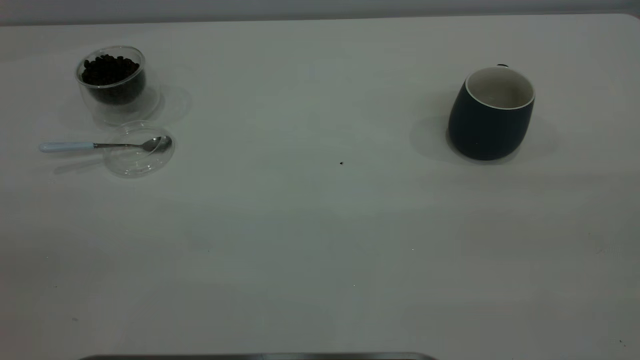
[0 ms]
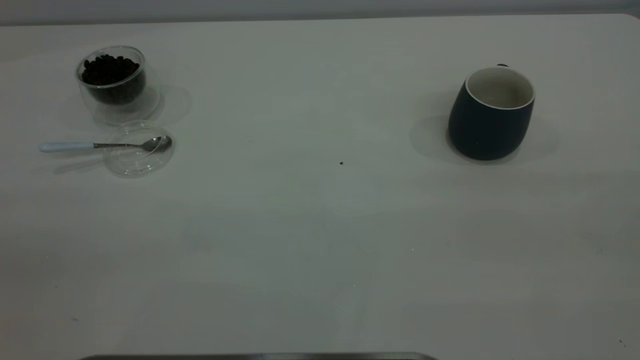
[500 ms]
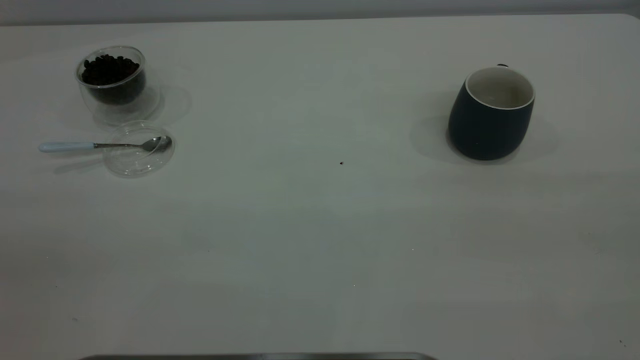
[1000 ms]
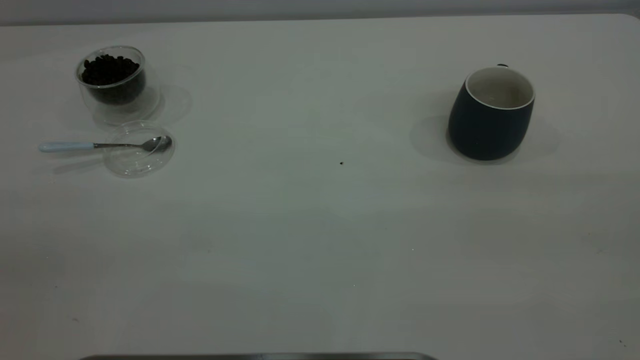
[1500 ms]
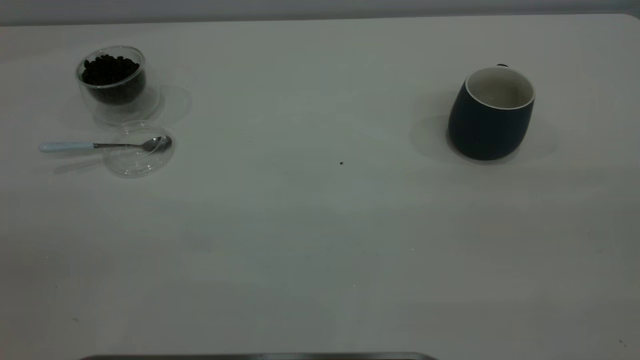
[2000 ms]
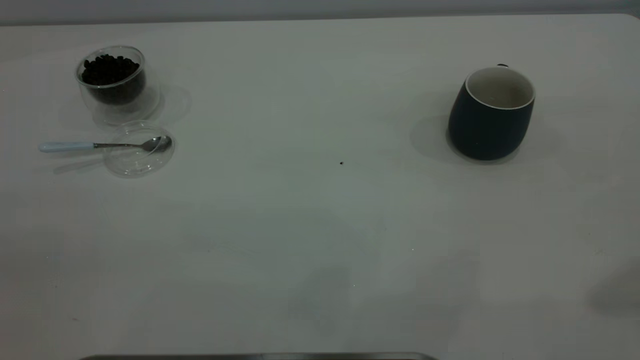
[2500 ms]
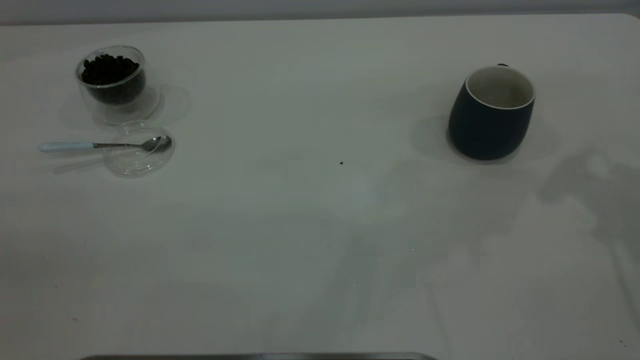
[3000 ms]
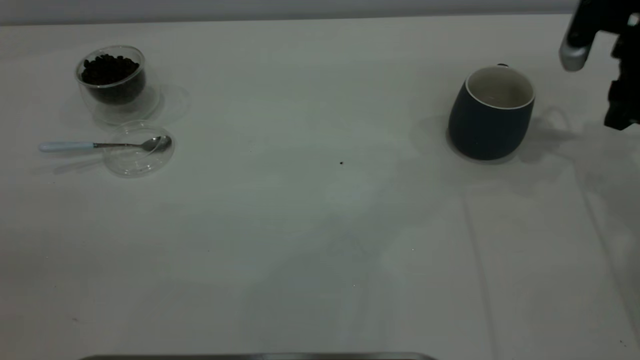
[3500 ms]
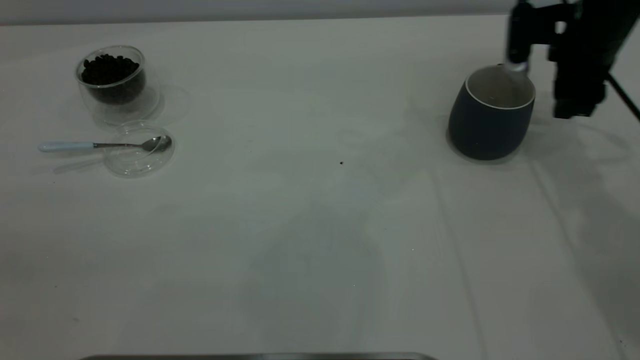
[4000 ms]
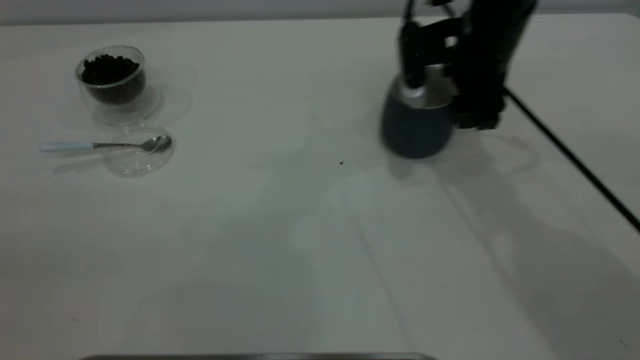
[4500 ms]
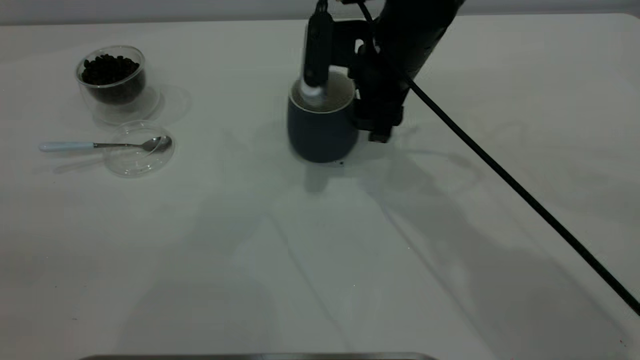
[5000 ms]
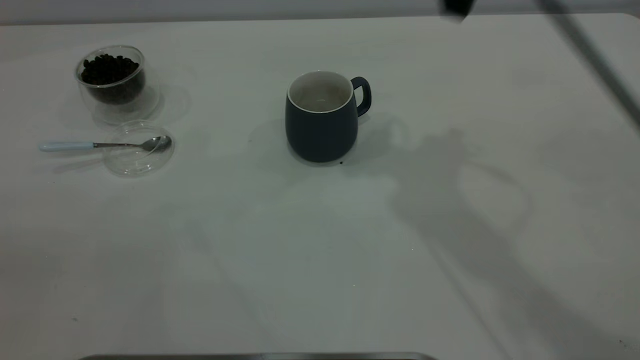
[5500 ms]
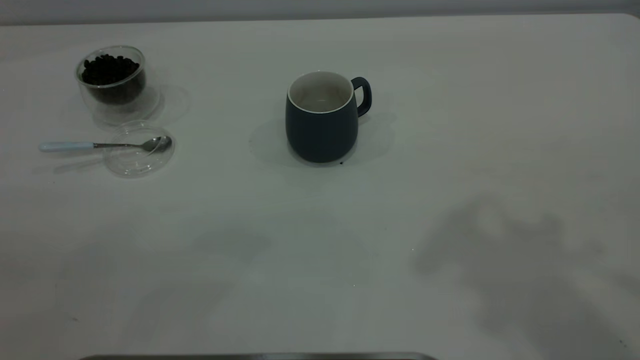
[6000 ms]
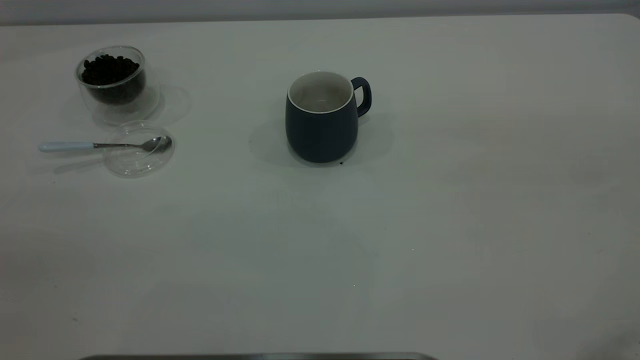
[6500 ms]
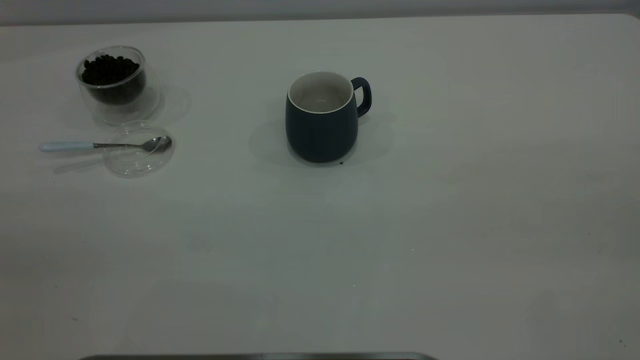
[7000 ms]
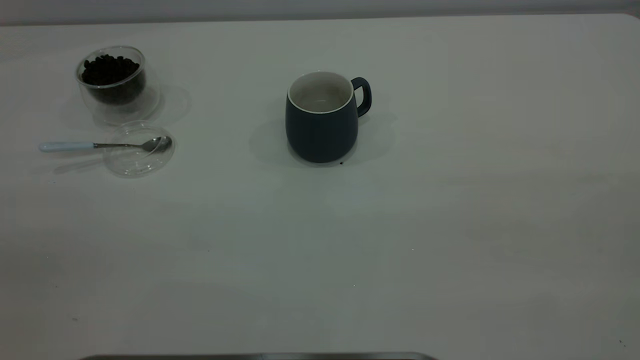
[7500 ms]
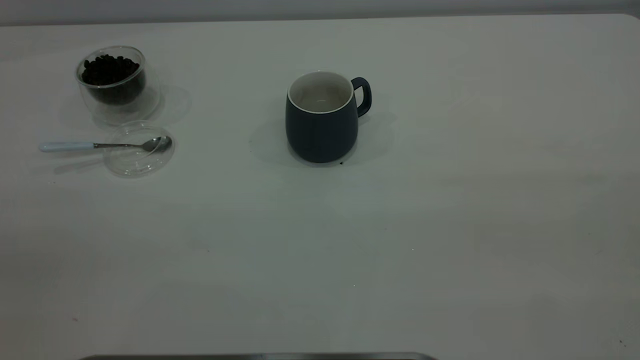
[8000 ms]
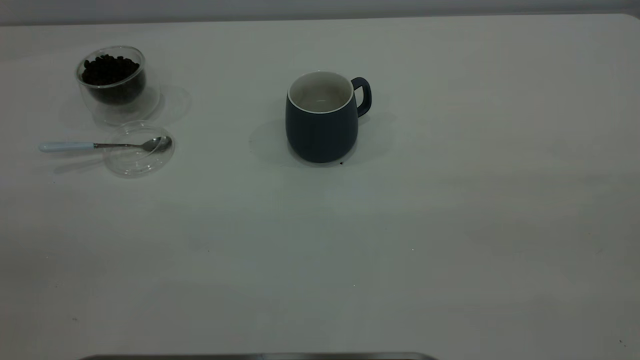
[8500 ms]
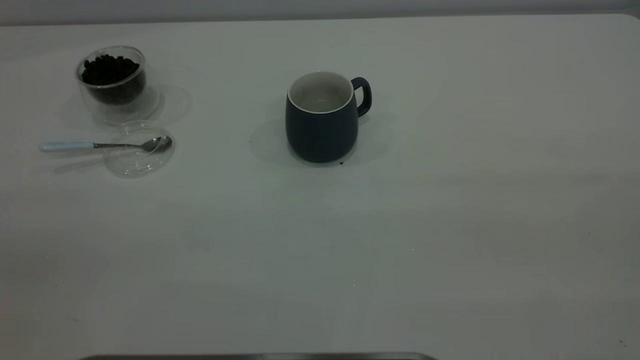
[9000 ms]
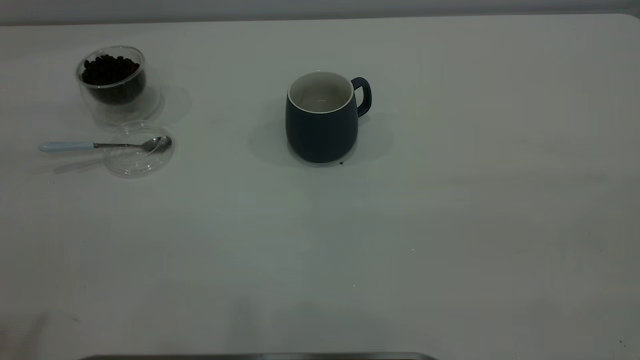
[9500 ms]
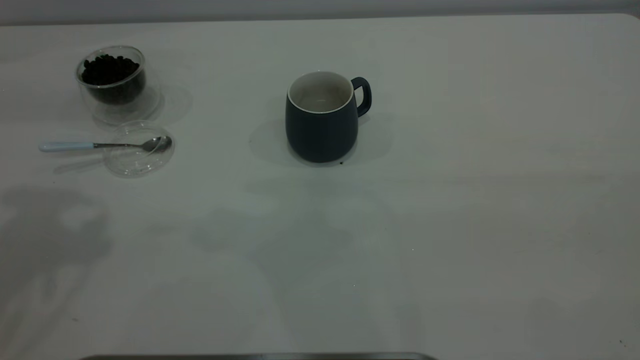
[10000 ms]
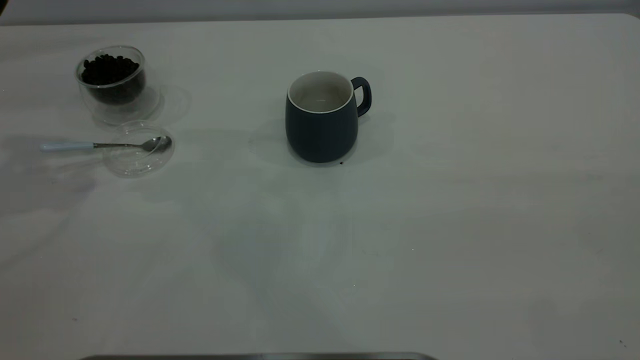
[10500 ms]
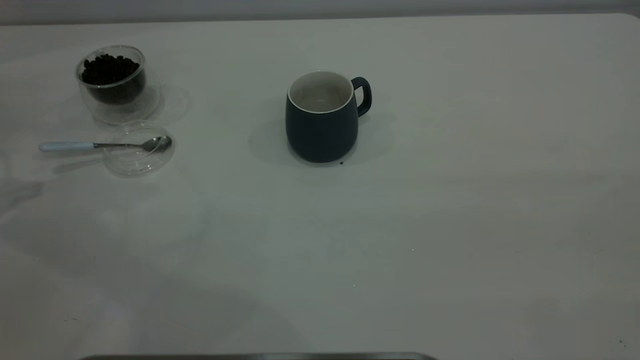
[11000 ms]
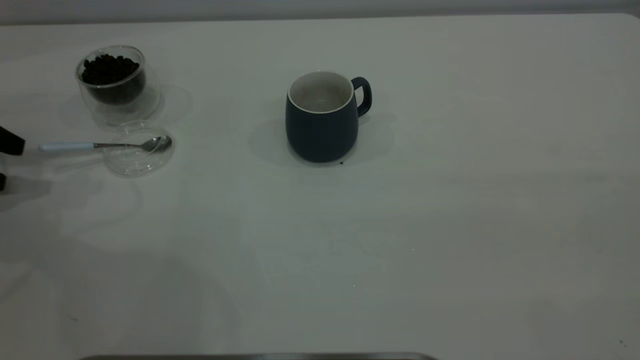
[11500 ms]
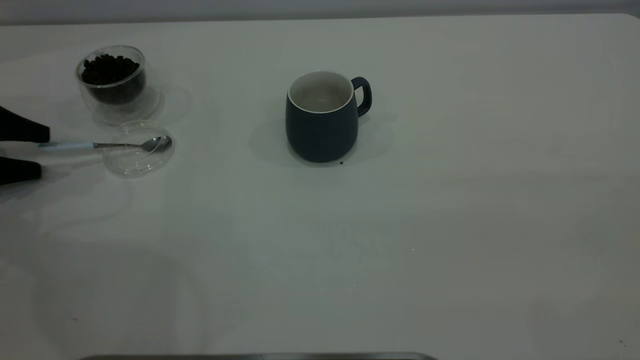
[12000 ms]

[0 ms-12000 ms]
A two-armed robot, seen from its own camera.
Task of the whole recording: the right gripper place the grey cup in the center of the table, the left gripper take the blue spoon from the cup lid and scoop out the coffee beans from the coffee cup and put them into the grey cup, the left gripper put the spoon back into the cup lid.
Step, 0 ms to 5000 ms: Move the cup to the center of view.
0 ms to 2000 ms: Neither gripper changes place.
2000 ms to 4000 ms: The right gripper is displaced forward and downward by about 50 cm.
4000 ms to 6000 ms: The right gripper is displaced upward and backward by about 40 cm.
10000 ms to 12000 ms: The left gripper goes roughly 35 cm downward and to the left.

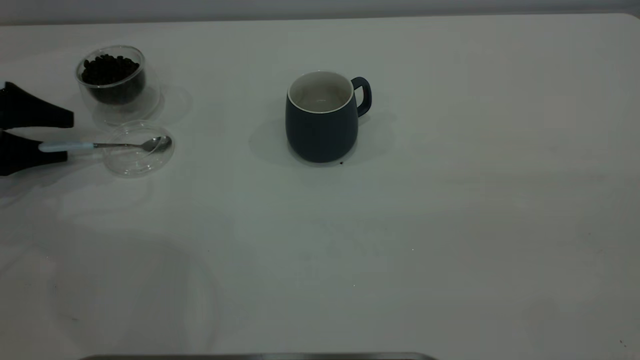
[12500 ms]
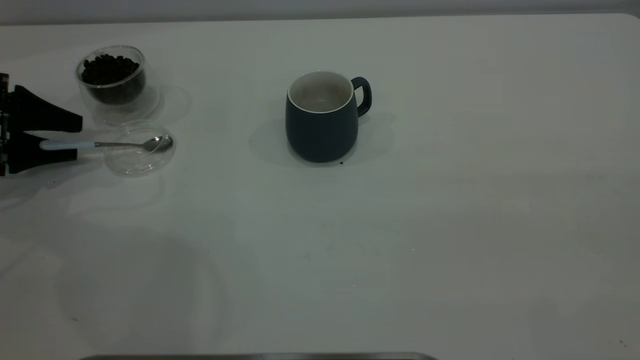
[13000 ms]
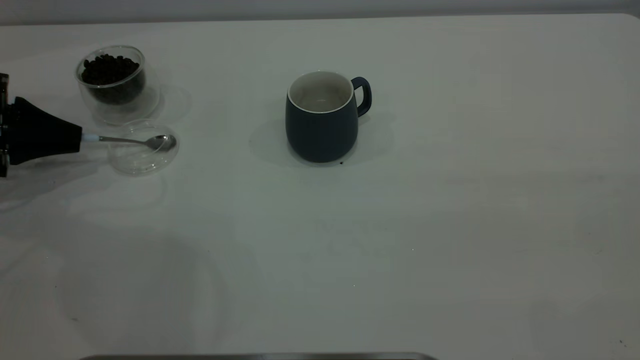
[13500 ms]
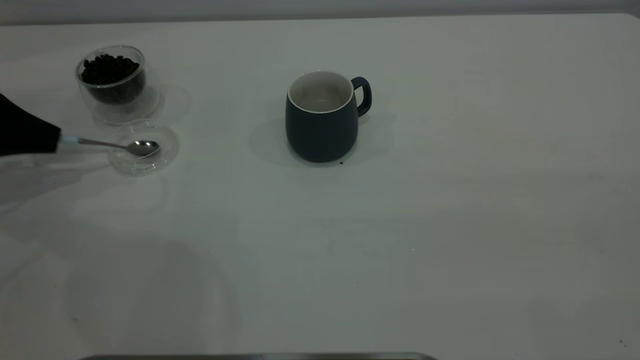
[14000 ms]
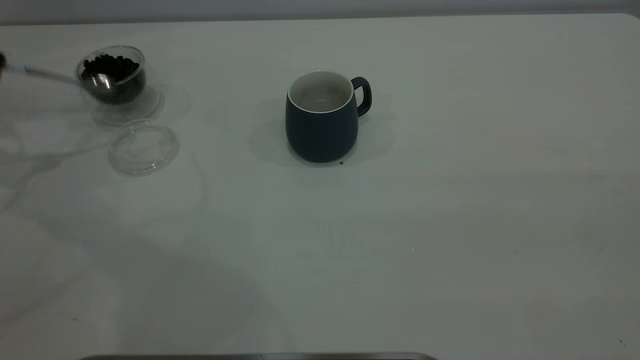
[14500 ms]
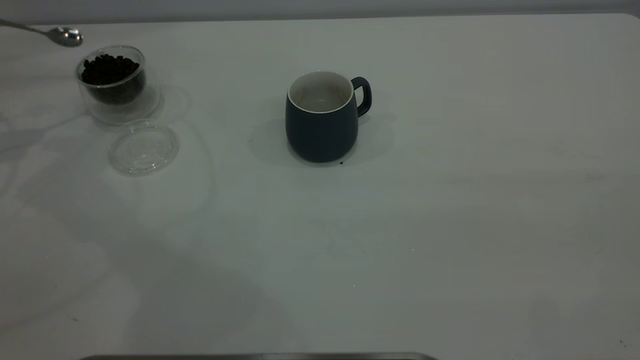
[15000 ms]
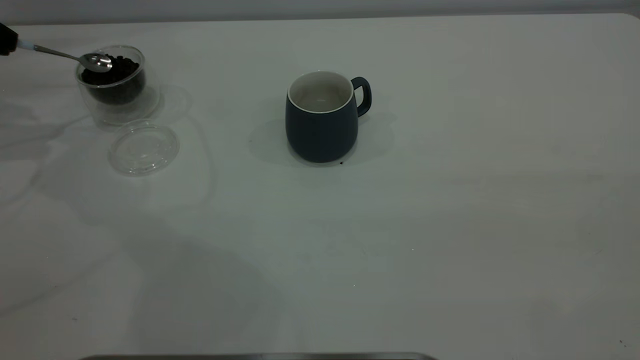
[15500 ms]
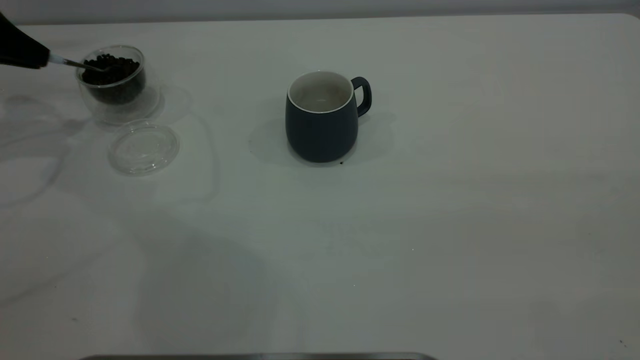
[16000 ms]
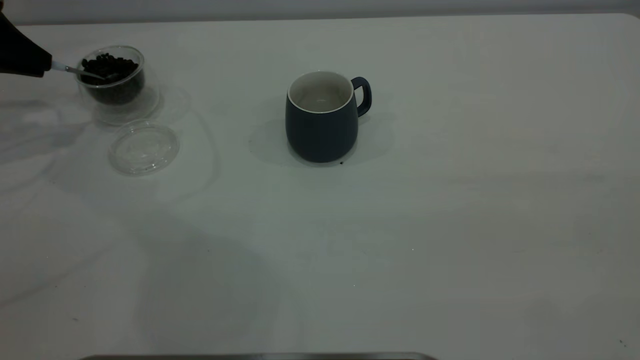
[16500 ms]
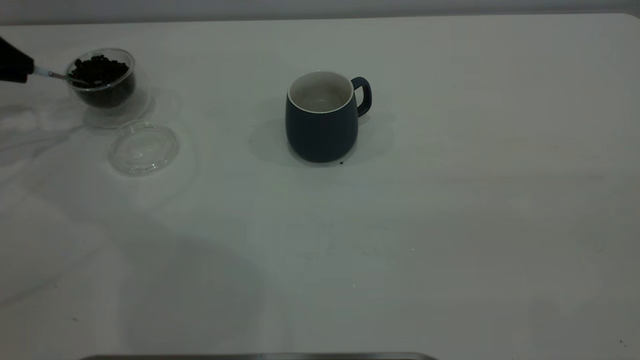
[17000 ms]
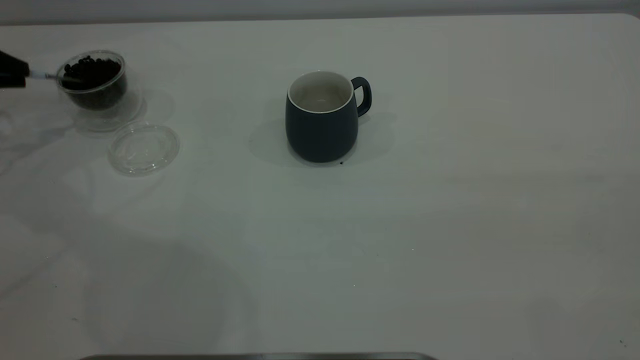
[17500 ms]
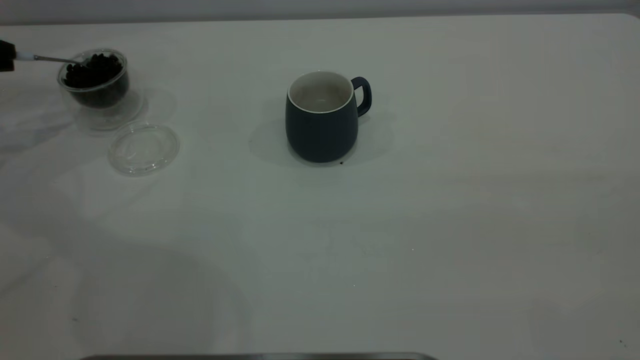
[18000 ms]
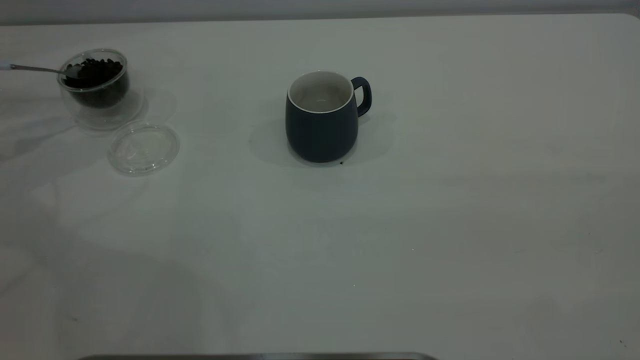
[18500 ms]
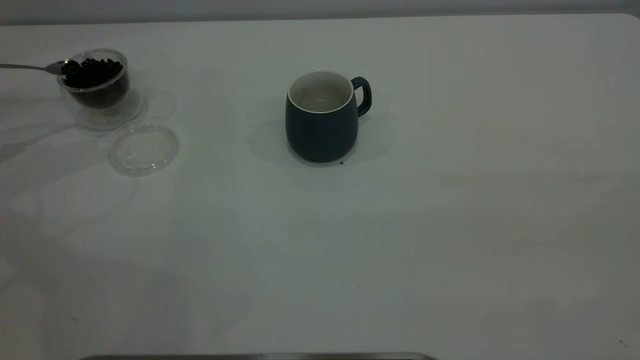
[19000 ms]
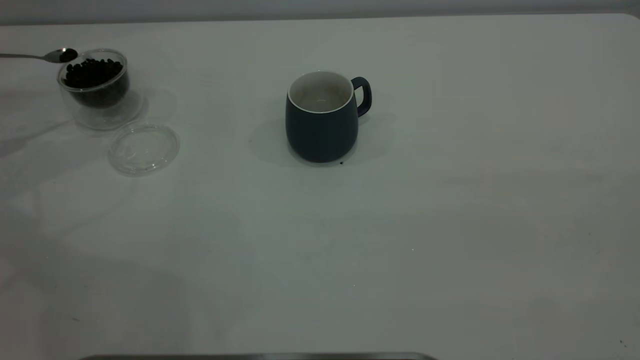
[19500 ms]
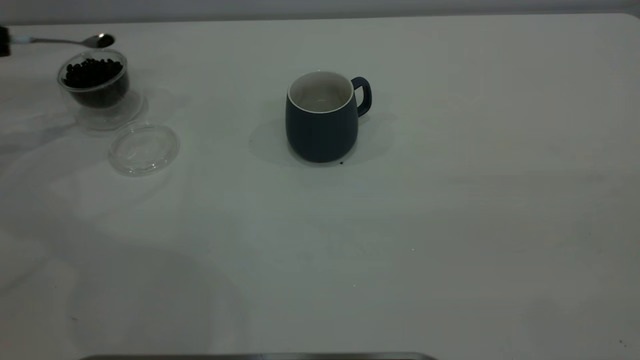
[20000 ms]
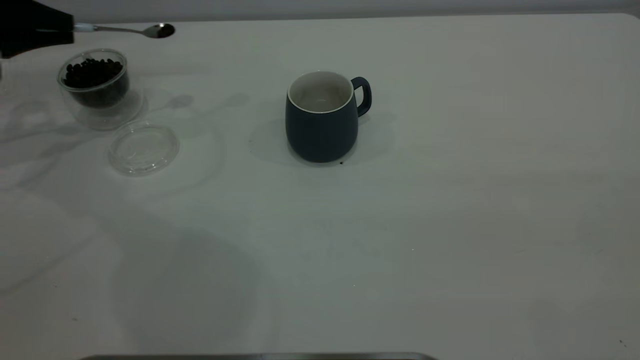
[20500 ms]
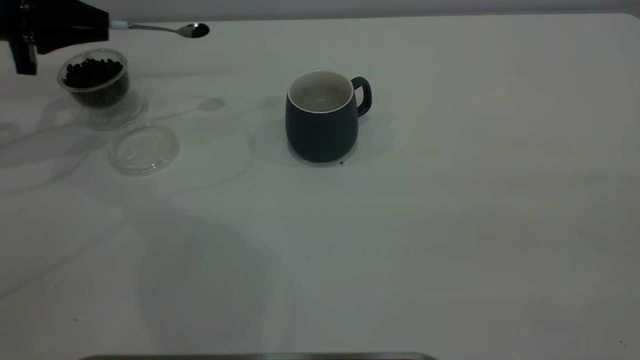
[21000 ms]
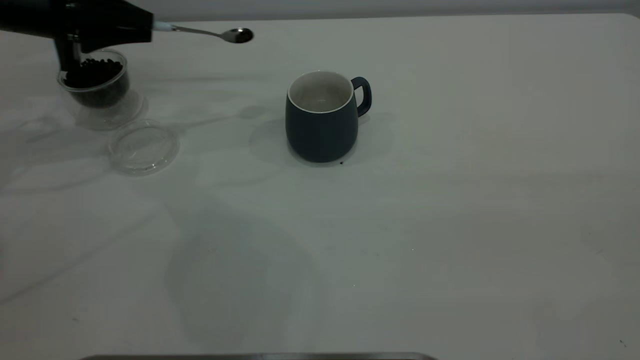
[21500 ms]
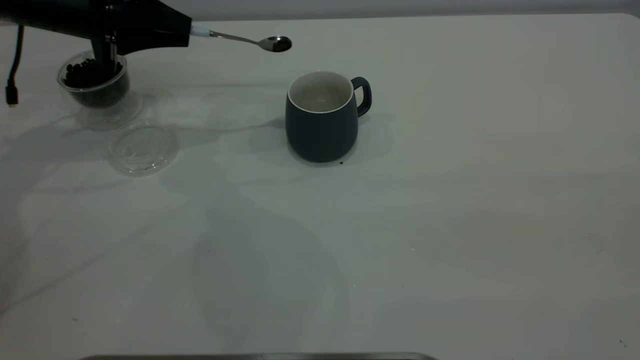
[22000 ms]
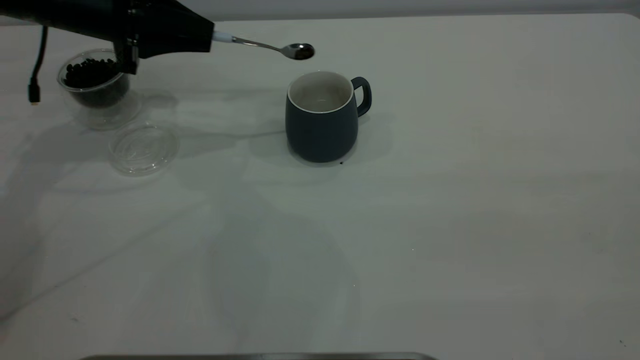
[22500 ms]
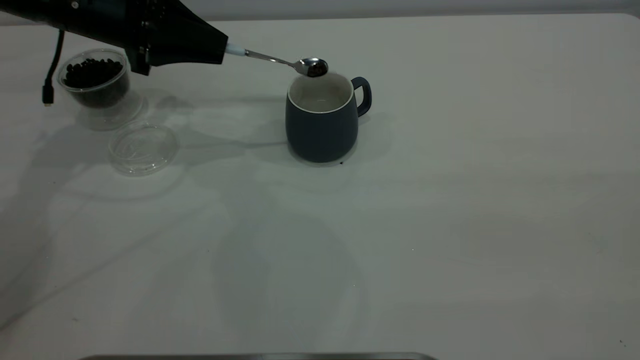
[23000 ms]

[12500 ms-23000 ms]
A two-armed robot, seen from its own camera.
Task of the whole recording: the right gripper place the grey cup in the center of the table, the left gripper take the blue spoon from the cup lid and scoop out the coffee beans from the coffee cup and put them into the grey cup, the left gripper put the spoon back into the cup lid.
Step, 12500 ms to 14500 ms: Pick up the spoon.
12500 ms to 14500 ms: The left gripper goes about 15 cm upward, and closes its fingers.
14500 ms to 16500 ms: The left gripper ends up approximately 5 cm from where it was.
16500 ms to 19000 ms: The left gripper goes approximately 10 cm to the left.
19000 ms to 21000 ms: The left gripper heads to the right, covering roughly 15 cm.
21000 ms to 23000 ms: The left gripper travels to the right by about 15 cm.
